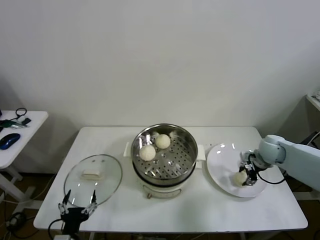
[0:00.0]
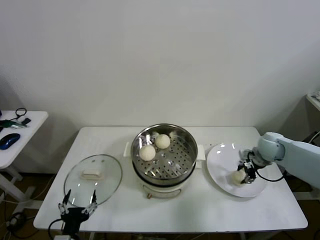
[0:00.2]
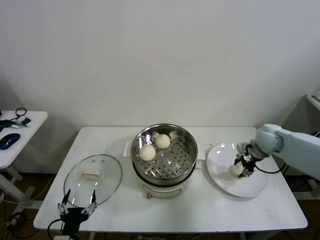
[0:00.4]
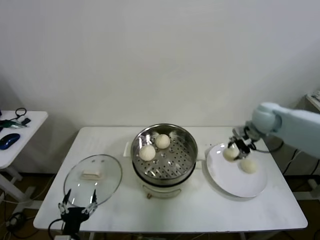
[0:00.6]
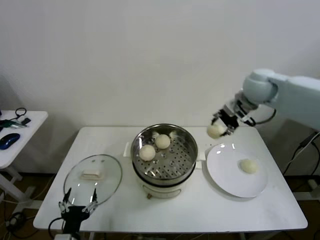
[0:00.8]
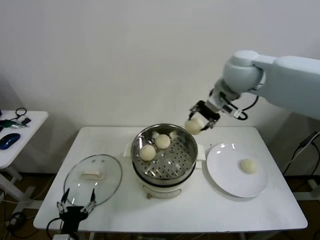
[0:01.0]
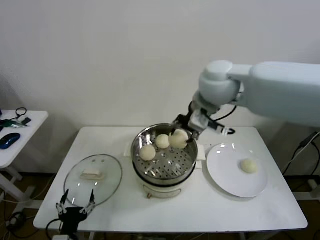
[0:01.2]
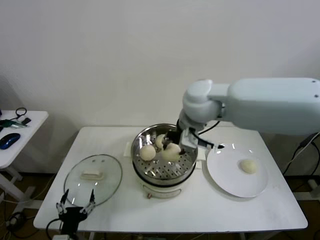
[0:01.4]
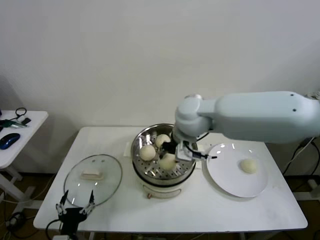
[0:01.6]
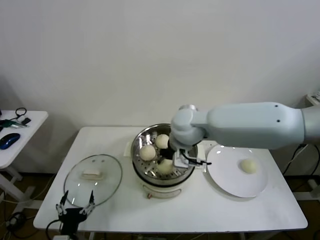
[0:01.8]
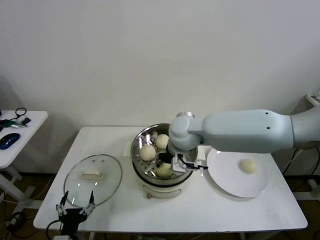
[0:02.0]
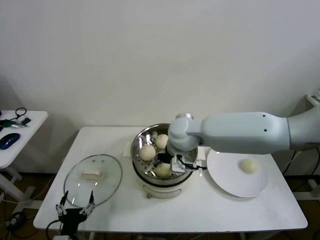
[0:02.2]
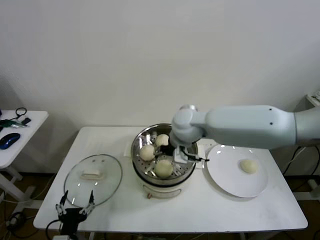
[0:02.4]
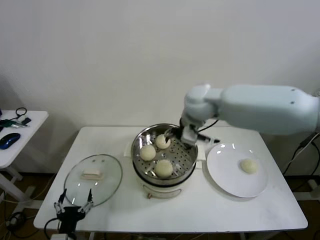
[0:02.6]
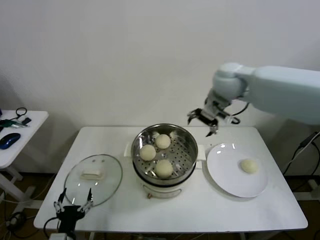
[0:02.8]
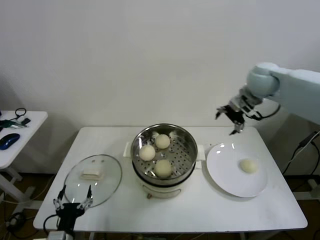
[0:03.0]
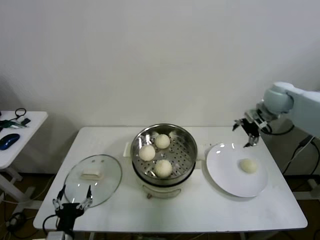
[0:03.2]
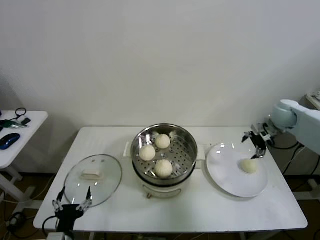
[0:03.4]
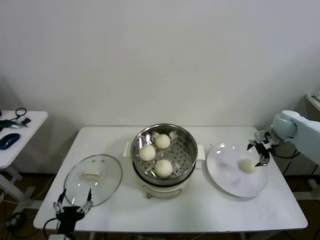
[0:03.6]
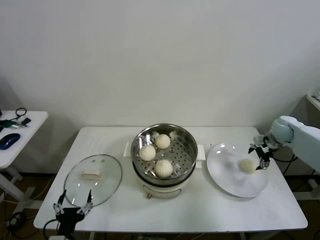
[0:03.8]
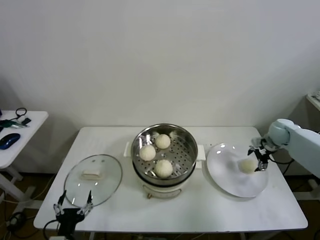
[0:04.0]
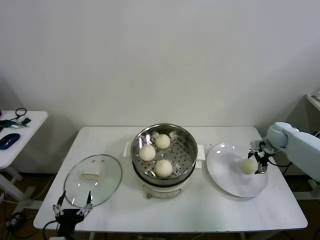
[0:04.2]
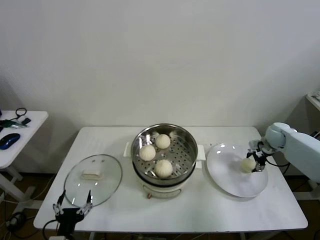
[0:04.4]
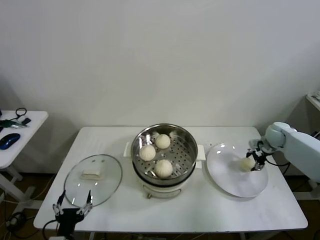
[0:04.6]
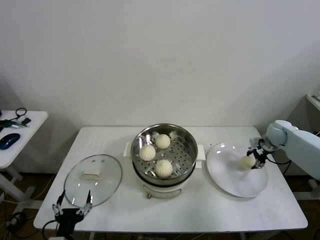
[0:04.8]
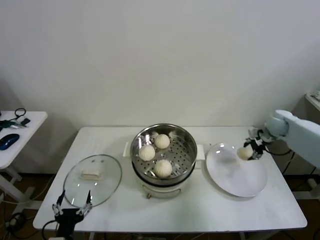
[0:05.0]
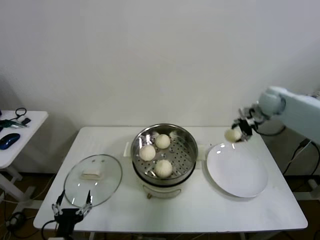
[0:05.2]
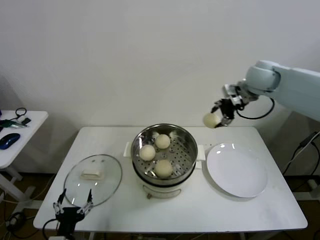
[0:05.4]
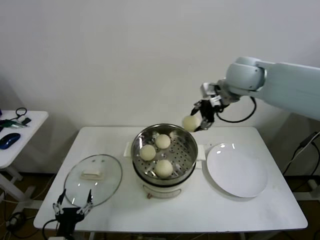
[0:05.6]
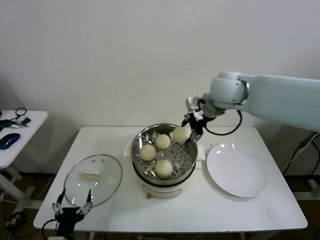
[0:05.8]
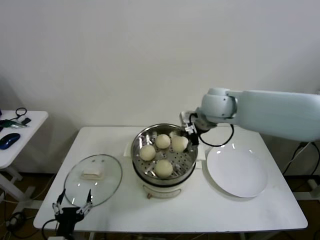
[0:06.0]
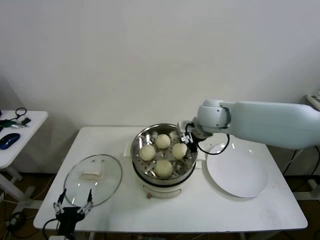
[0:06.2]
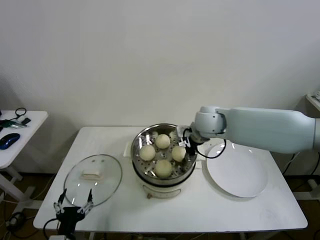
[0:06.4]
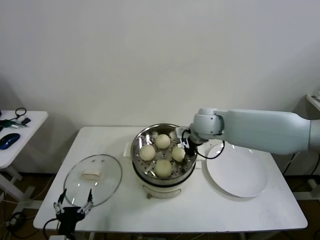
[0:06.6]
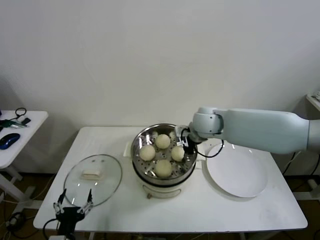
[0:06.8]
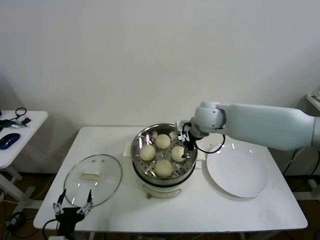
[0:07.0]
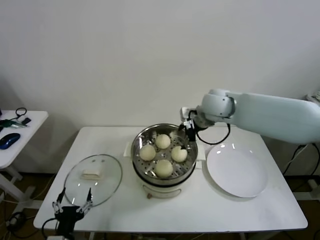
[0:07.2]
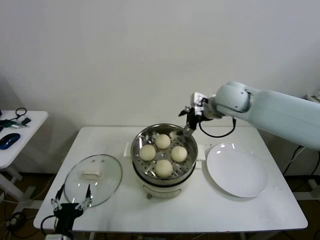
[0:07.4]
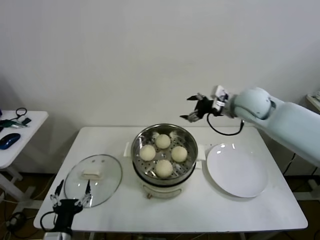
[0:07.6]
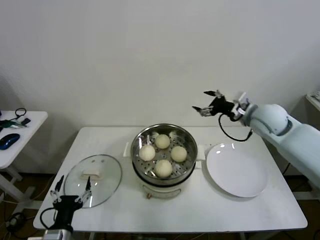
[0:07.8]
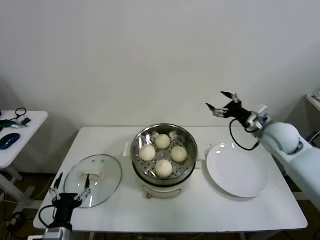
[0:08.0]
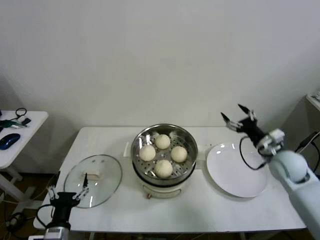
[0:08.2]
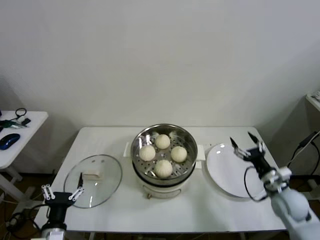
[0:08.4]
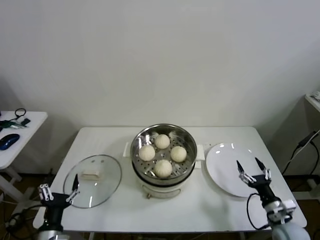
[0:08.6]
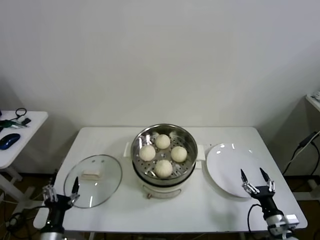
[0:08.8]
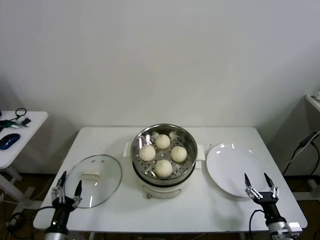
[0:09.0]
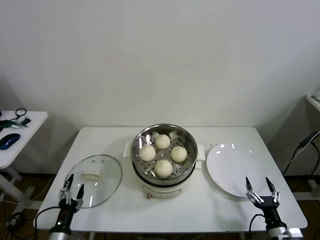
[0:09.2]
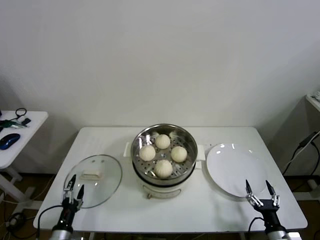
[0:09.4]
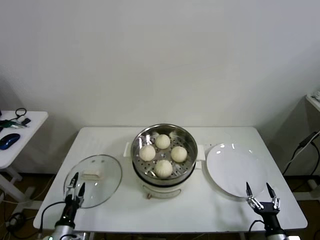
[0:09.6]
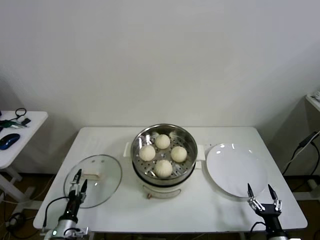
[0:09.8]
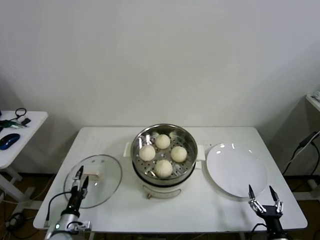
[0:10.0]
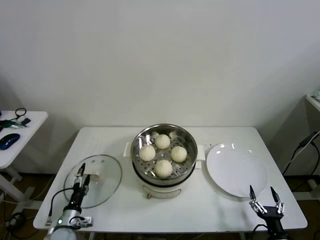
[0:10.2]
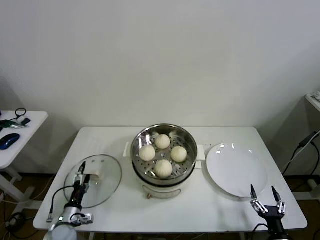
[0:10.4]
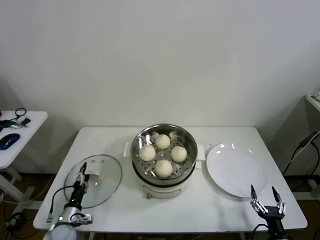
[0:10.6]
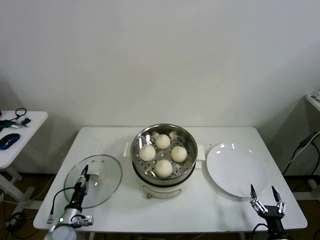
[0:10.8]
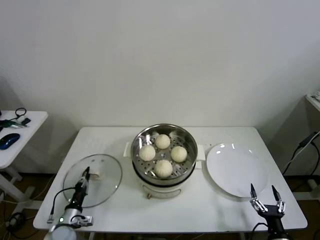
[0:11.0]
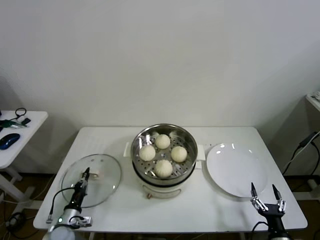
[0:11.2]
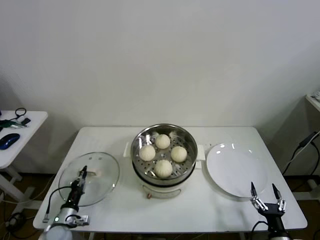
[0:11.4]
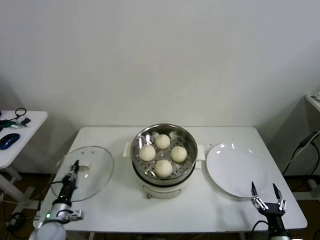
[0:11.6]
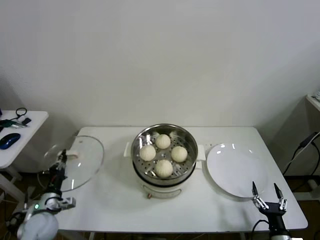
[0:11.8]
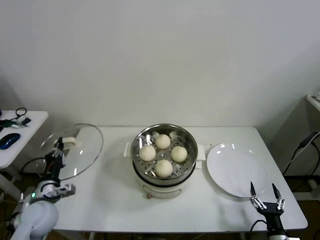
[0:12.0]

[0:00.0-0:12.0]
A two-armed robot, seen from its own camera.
Step, 0:00.2 to 0:02.2: Place the baozi on the steamer with right gripper.
Step, 0:02.4 to 0:04.4: Grasp the baozi in the plate with right gripper.
Step, 0:04.6 to 0:06.6: Place the baozi on the steamer with right gripper.
Step, 0:06.8 to 0:11.0: Grasp the pot lid with left gripper.
0:00.0 to 0:01.6: The right gripper moves to the left and upward, approximately 40 cm.
0:01.6 to 0:03.0: The right gripper is displaced to the right and forward by approximately 25 cm, and opens its fingers.
0:03.0 to 0:04.4: The right gripper heads downward and to the right, covering about 30 cm.
0:04.4 to 0:06.0: The right gripper is displaced to the left and upward by approximately 35 cm.
0:06.0 to 0:07.6: The right gripper heads to the right, covering some 10 cm, and opens.
0:07.6 to 0:09.0: The left gripper is displaced downward by approximately 5 cm. The right gripper goes approximately 50 cm downward and backward.
0:09.0 to 0:10.4: The left gripper heads forward and downward, covering some 15 cm. The right gripper ends up approximately 5 cm from where it was.
0:10.4 to 0:12.0: The left gripper is displaced upward by some 15 cm, and closes.

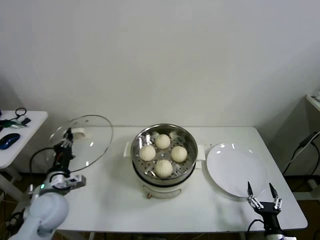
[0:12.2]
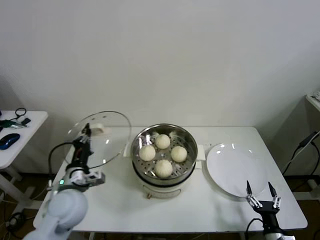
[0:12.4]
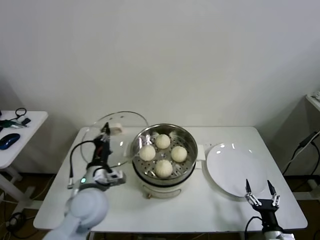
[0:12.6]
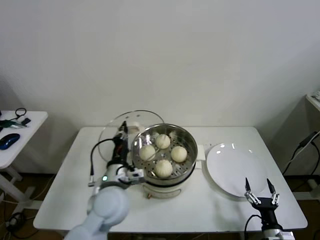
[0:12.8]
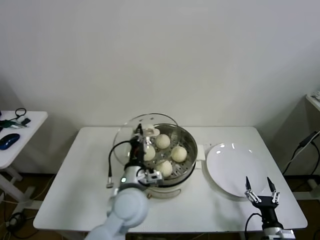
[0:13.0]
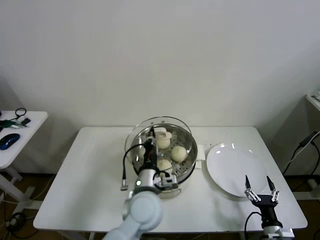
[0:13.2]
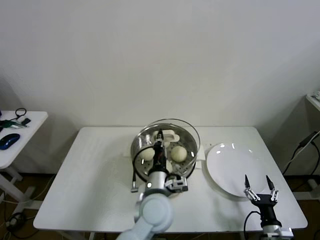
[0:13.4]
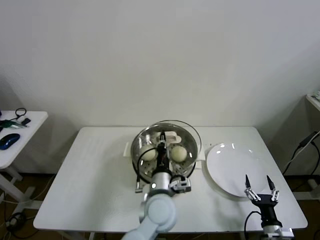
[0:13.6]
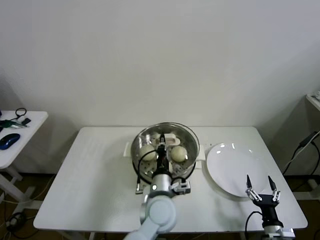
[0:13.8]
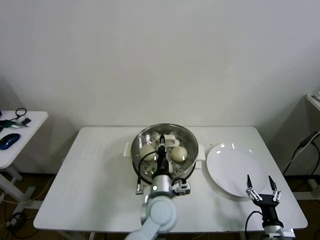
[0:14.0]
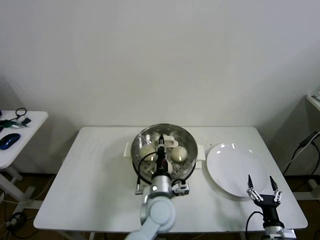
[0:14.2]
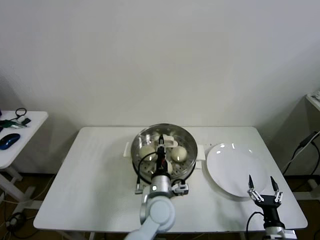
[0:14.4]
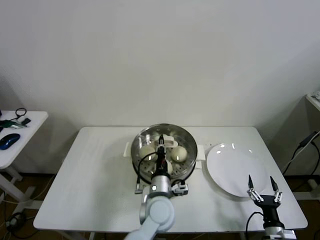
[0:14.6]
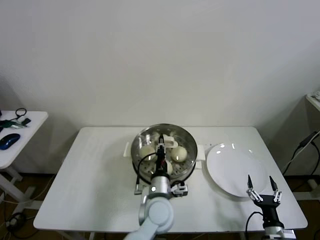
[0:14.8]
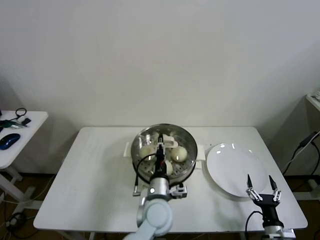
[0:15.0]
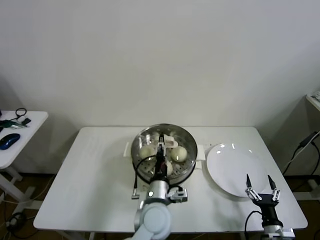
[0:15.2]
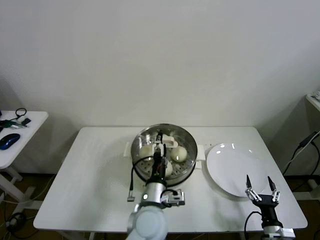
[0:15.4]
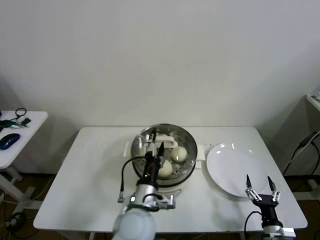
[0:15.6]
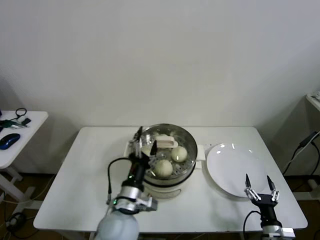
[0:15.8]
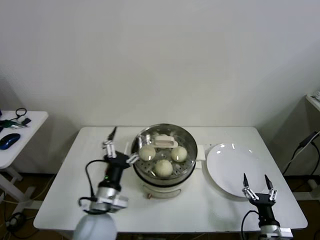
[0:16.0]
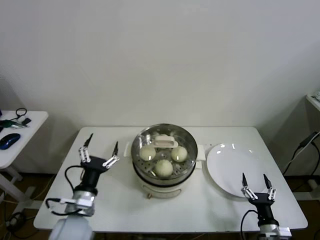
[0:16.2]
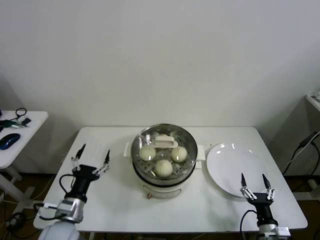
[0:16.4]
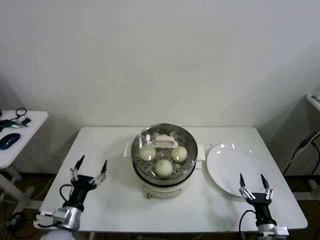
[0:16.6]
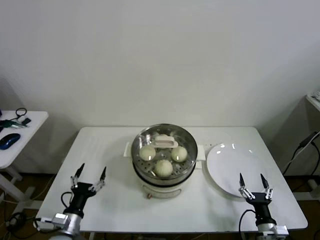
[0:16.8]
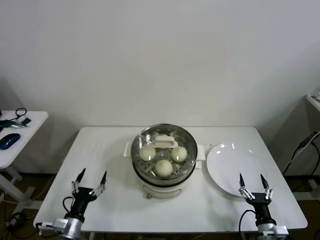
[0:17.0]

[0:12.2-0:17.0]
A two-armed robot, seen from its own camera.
Step, 0:12.2 to 0:15.0: Place the pot lid on the steamer with left gripper.
0:12.2 to 0:13.8: The left gripper travels to the right by approximately 35 cm.
0:13.8 to 0:15.4: The left gripper opens up.
0:15.4 to 0:17.0: The left gripper is displaced to the left by approximately 30 cm.
